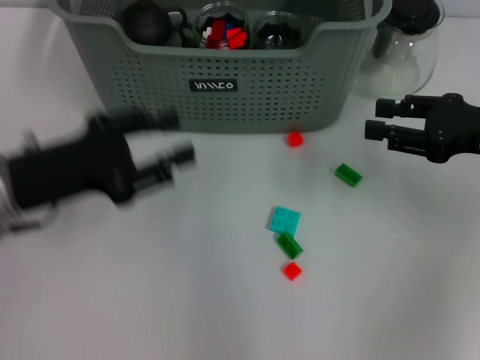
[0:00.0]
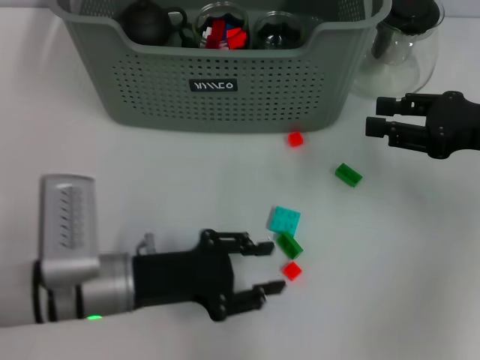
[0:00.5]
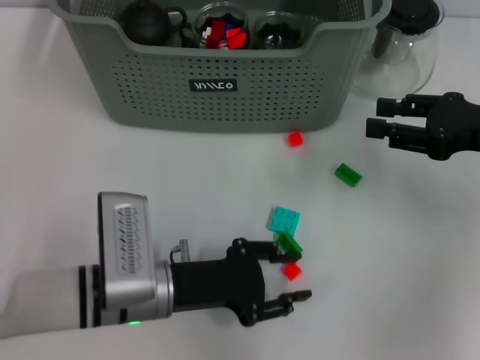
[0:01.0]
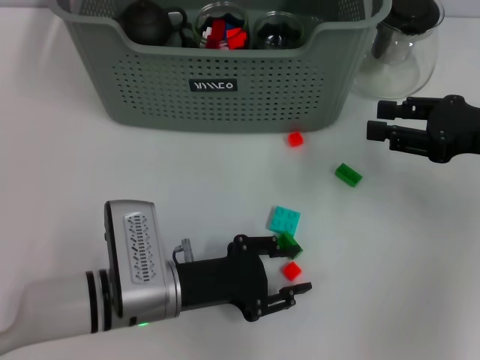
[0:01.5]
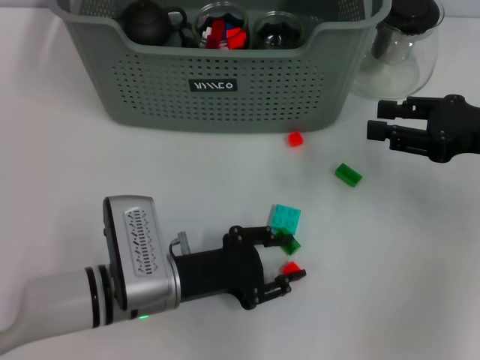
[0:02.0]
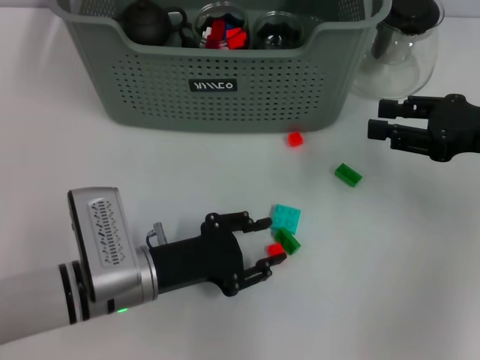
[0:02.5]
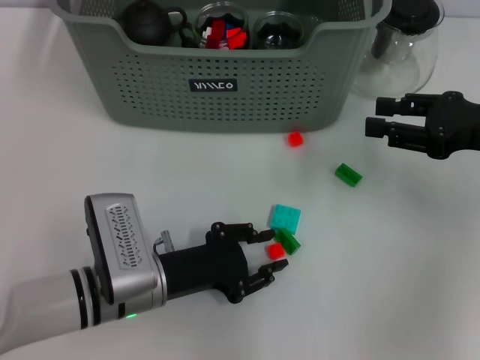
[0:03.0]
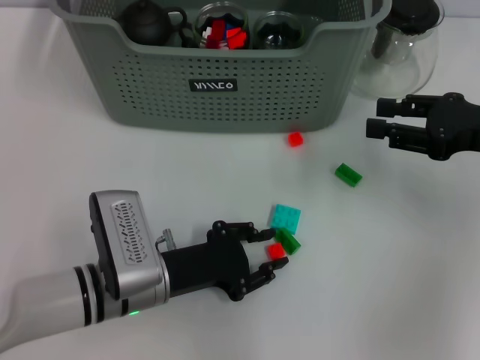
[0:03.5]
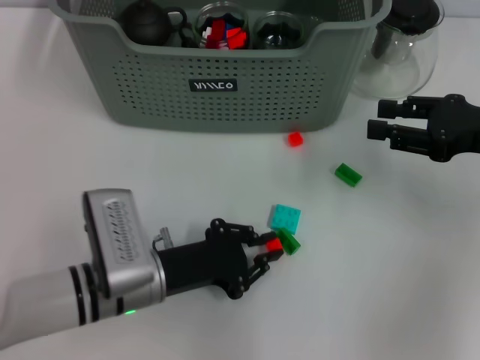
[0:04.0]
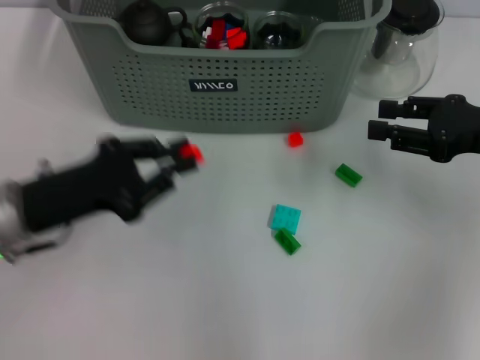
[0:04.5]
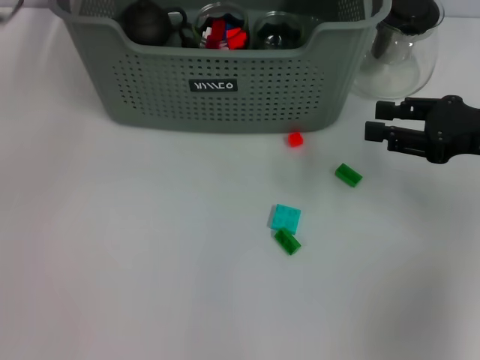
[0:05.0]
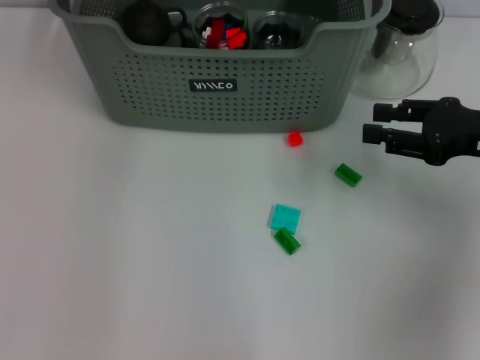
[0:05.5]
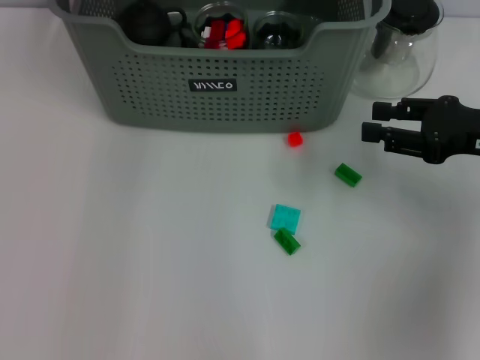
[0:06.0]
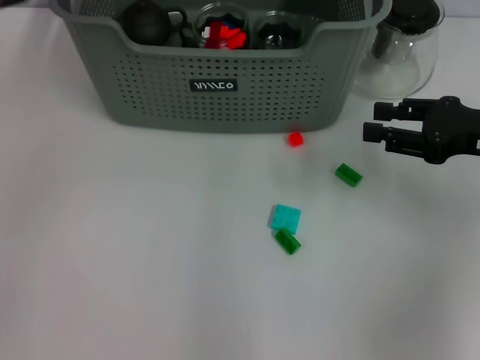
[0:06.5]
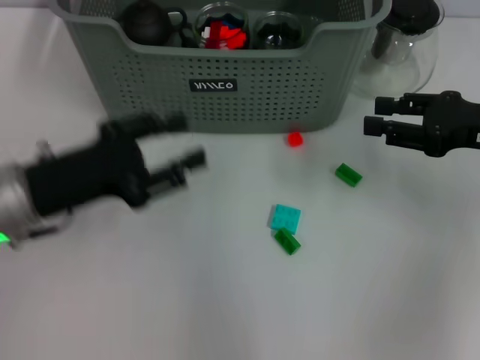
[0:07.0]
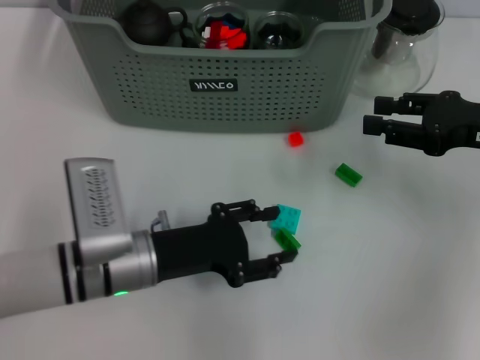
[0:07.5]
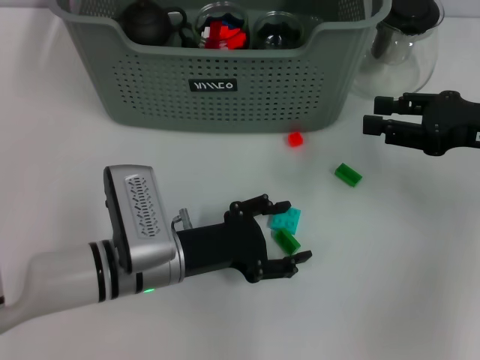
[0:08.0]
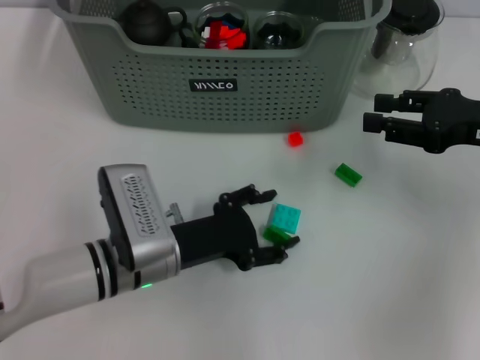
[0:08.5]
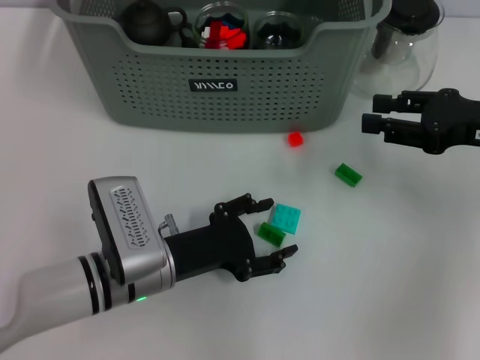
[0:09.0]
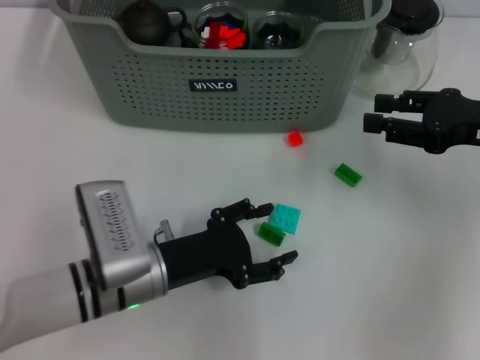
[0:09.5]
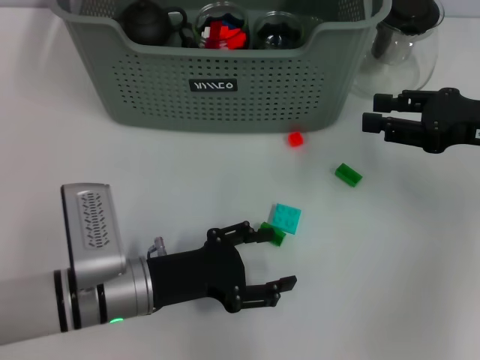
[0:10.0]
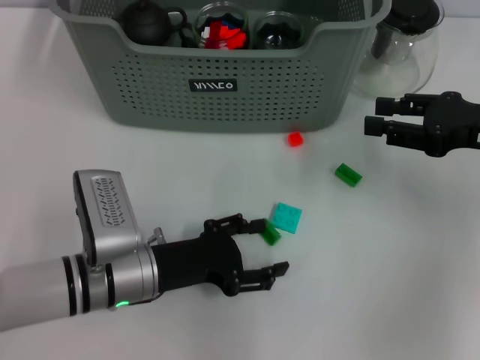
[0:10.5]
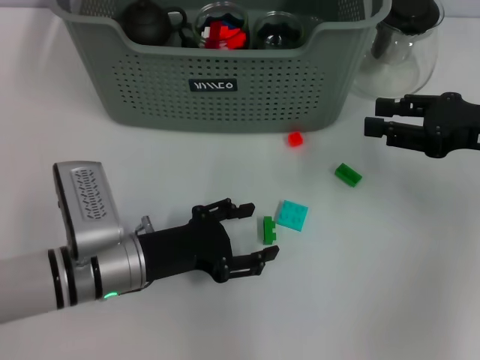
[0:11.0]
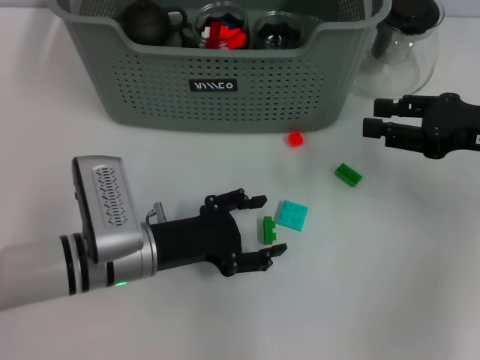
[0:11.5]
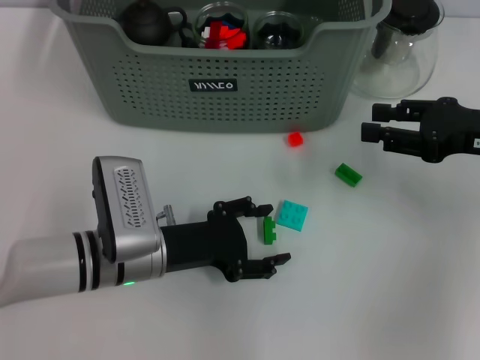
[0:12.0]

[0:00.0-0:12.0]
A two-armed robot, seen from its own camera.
Task of the whole recording: pick up the teacup on the table and place it into the storage bin, pick up the block on the table and place it into the storage bin.
Step, 0:00.0 to 0:03.5: Grasp the orange block with left gripper.
Step, 0:04.0 to 0:06.0: Place the orange block in the storage box with left gripper.
0:00.0 to 0:02.0: The left gripper moves to the right and downward, about 15 cm.
0:02.0 to 0:04.0: The grippers stay close to where they were, moving slightly.
0:04.0 to 0:06.0: The left gripper moves upward and forward, some 35 cm.
0:06.0 to 0:08.0: The left gripper heads downward and backward, covering about 30 cm, and opens up.
0:08.0 to 0:12.0: The grippers stay close to where they were, moving slightly.

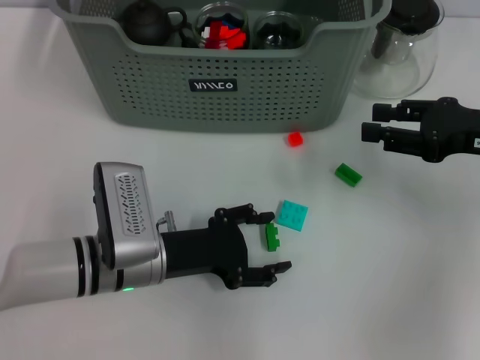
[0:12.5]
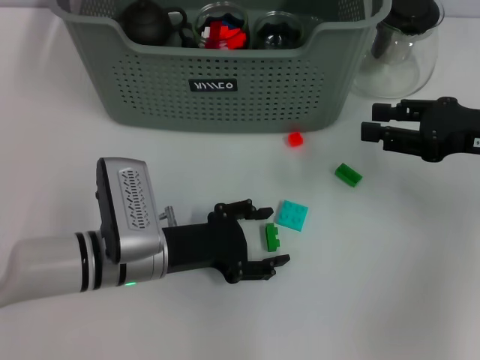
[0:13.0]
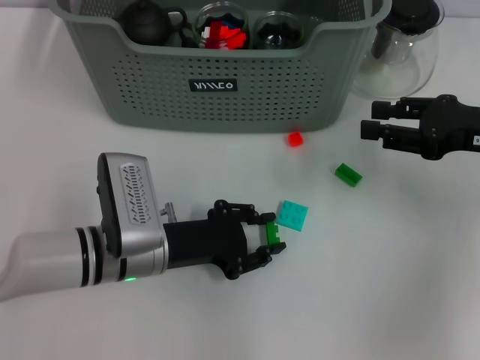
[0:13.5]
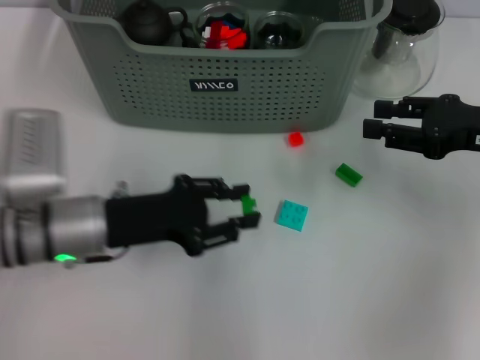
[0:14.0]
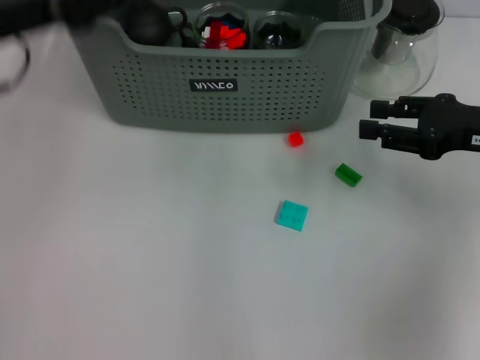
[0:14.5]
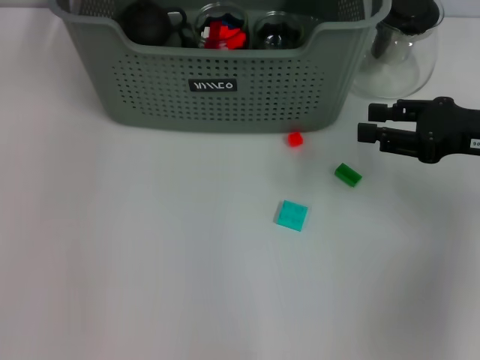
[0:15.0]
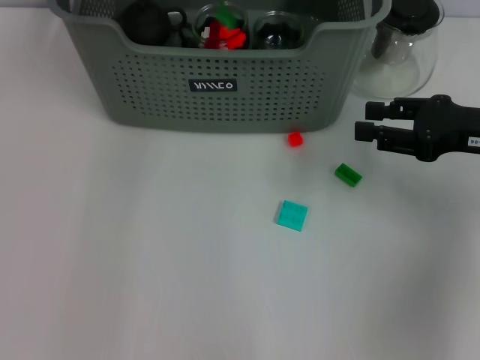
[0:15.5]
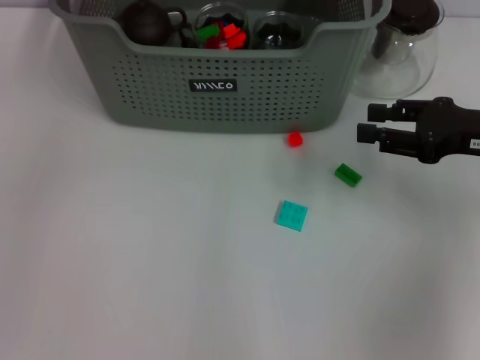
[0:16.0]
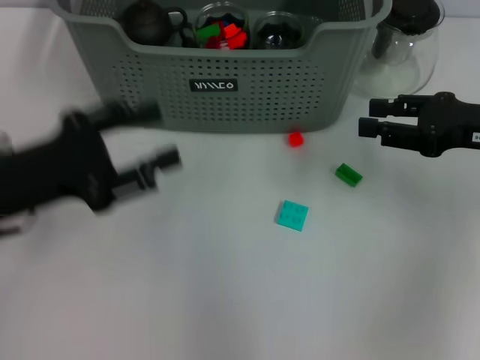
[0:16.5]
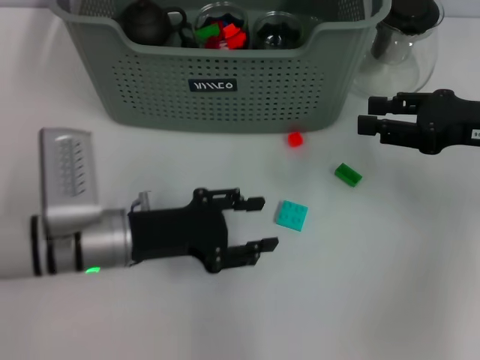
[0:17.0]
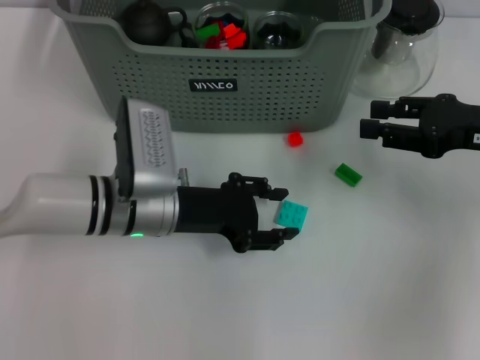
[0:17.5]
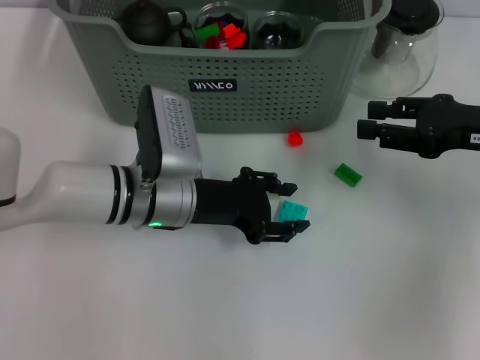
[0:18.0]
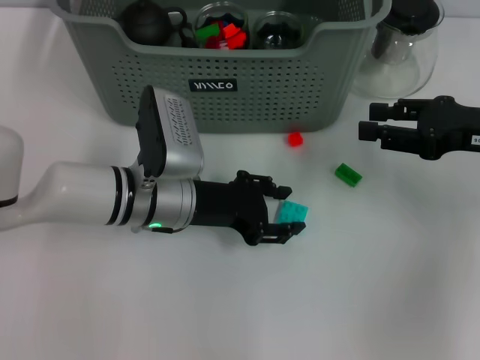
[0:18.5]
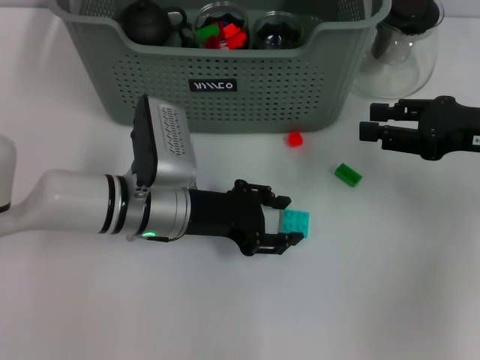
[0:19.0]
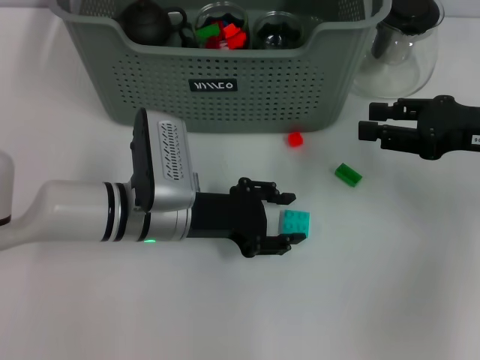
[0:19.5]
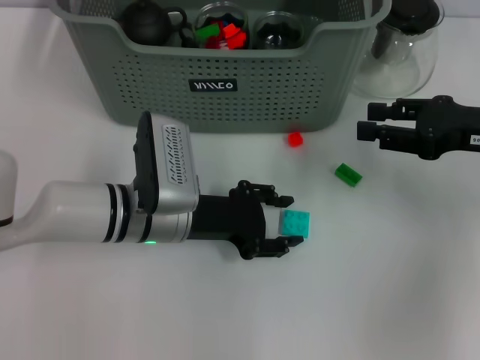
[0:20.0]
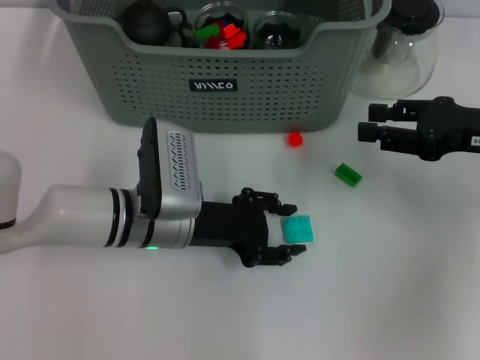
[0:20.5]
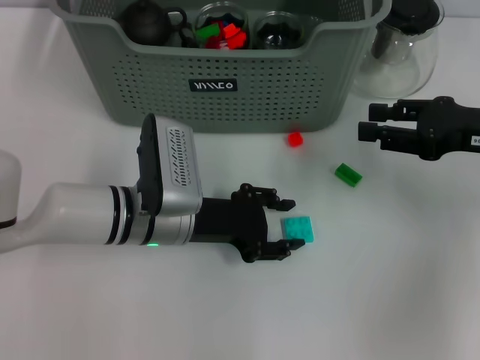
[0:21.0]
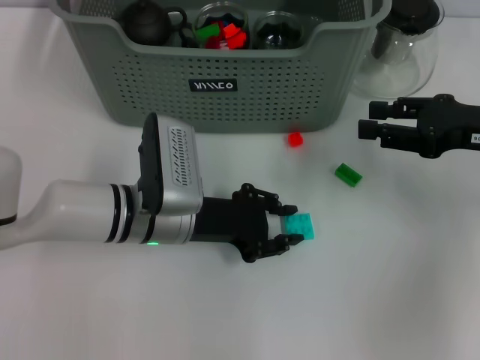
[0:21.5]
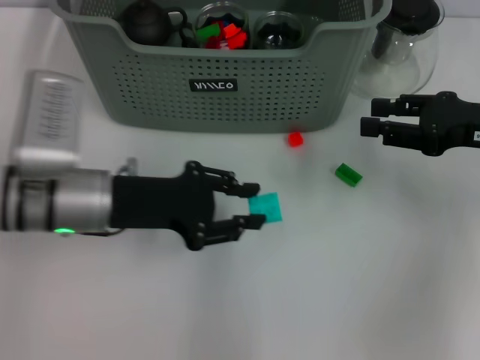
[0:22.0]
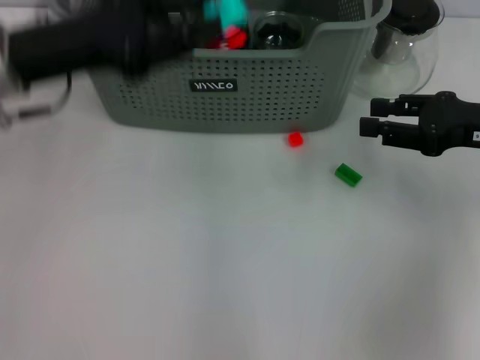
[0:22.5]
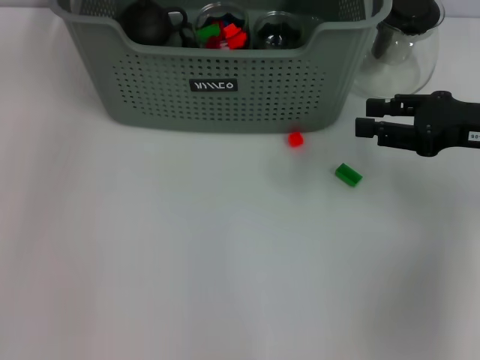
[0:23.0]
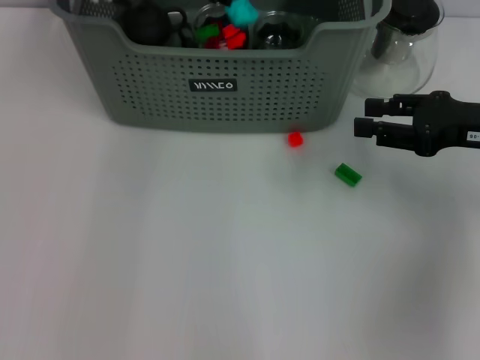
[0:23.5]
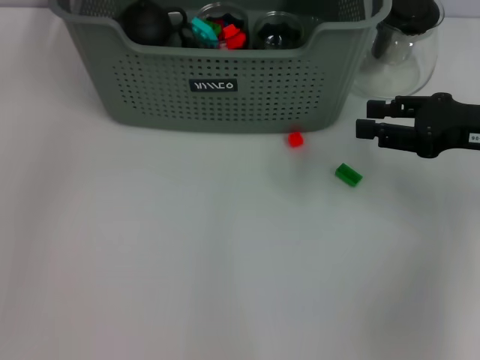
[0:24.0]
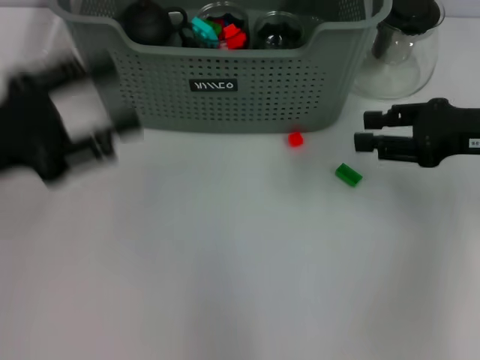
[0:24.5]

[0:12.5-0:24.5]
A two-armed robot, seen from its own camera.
Task of the whole recording: pick up the teacup on the table and place it into the storage bin, pick up the block on the table and place it into the storage bin.
Step, 0:13.5 to 0:15.5: Place the green block in the storage box with left gripper.
Step, 0:16.0 to 0:21.0: Grasp the light blue block with left gripper.
Step, 0:21.5 to 0:23.5: Place the light blue block in the storage box with left gripper.
0:12.5 to 0:14.5: The left gripper moves upward, to the left and forward, approximately 25 cm, and closes its fingers.
0:14.5 to 0:16.5: The left gripper shifts about 15 cm backward and downward.
0:16.5 to 0:18.5: The left gripper shifts some 20 cm to the right, downward and forward.
0:18.5 to 0:20.5: There are only small adjustments of the grippers.
0:20.5 to 0:22.5: The left gripper moves upward and to the left, roughly 20 cm.
0:22.5 to 0:24.5: The left gripper goes about 5 cm to the left, and travels forward and back again, approximately 15 cm each way.

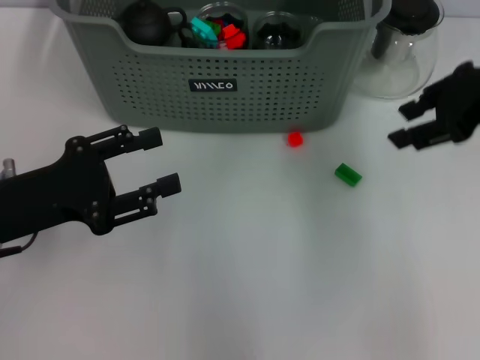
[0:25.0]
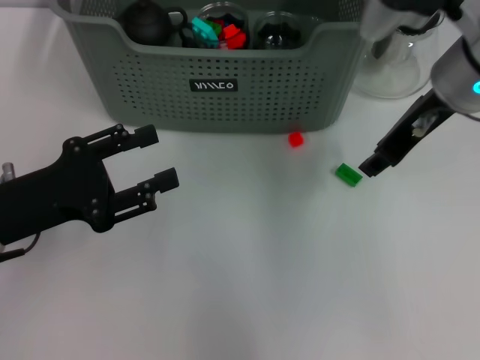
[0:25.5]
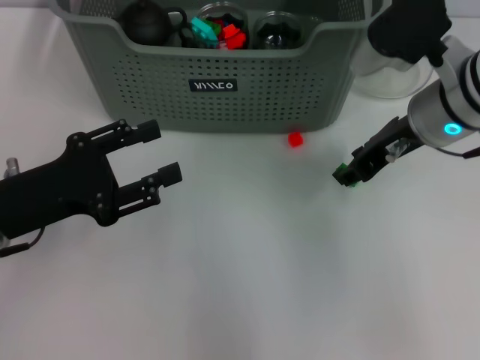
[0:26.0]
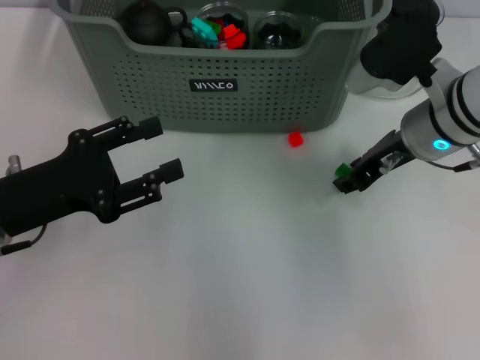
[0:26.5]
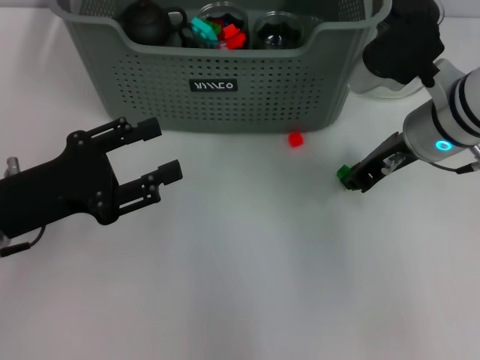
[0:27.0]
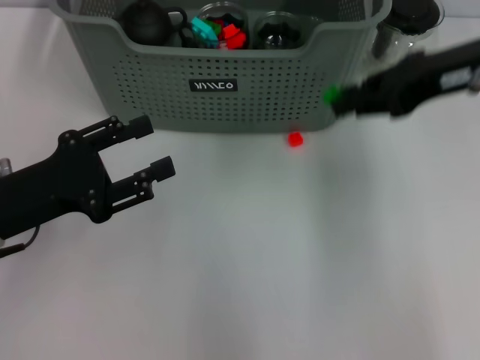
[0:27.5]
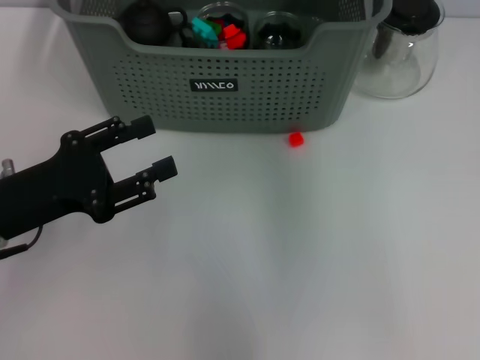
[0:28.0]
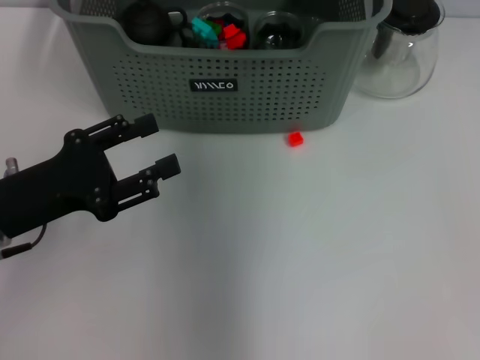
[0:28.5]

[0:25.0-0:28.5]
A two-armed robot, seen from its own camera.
Task of the whole recording: pick up the teacup on the table and place it into the storage bin, pick up the block on the table and place it into the storage bin.
Step, 0:25.0 to 0:26.5: Grasp the green block with right gripper.
0:25.0 to 0:27.0: The right gripper heads downward and to the left, covering roughly 15 cm.
0:27.0 to 0:28.5: The right gripper travels to the left, upward and forward by about 20 cm.
